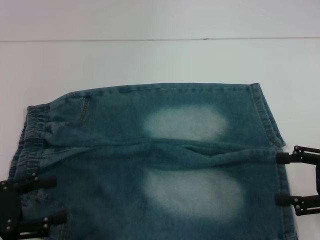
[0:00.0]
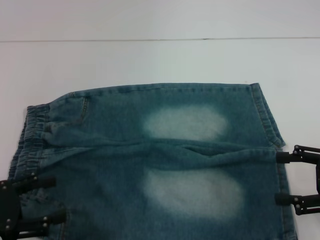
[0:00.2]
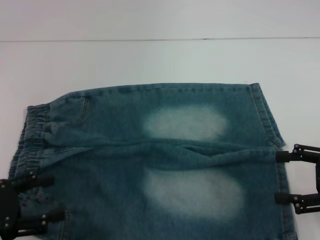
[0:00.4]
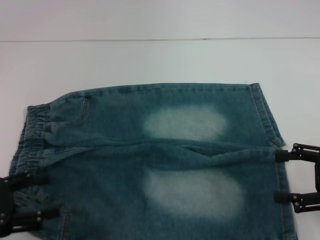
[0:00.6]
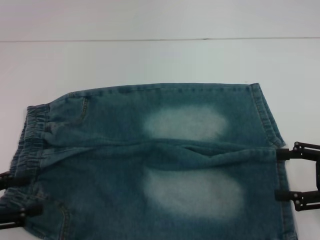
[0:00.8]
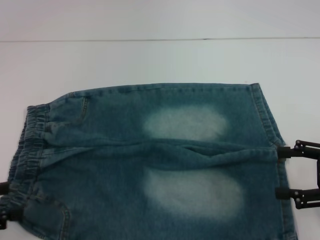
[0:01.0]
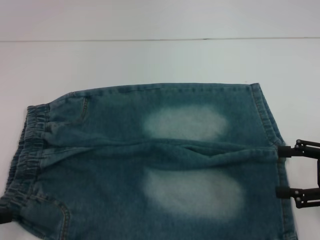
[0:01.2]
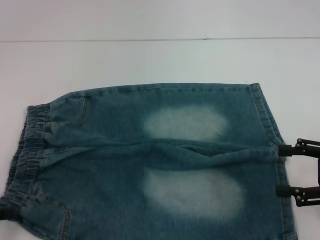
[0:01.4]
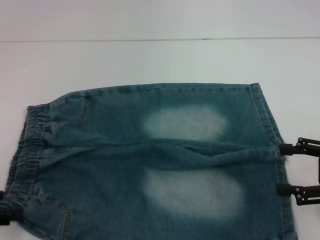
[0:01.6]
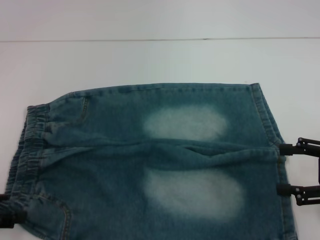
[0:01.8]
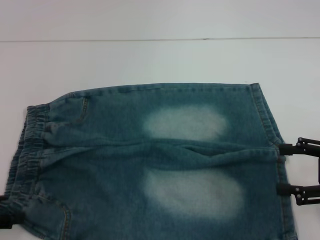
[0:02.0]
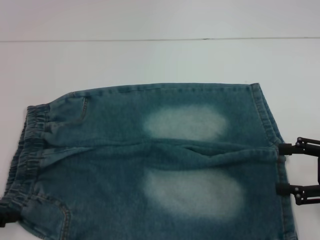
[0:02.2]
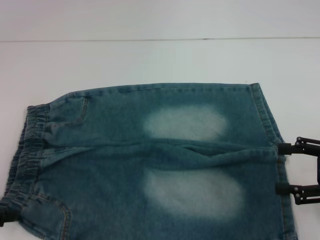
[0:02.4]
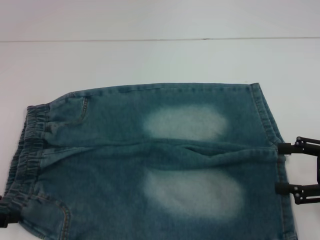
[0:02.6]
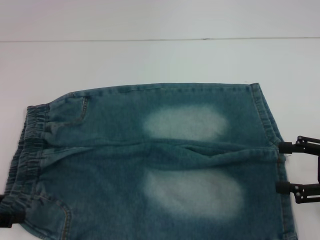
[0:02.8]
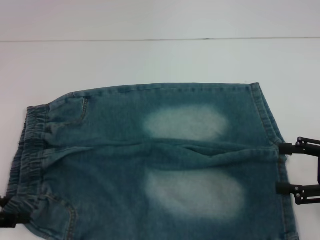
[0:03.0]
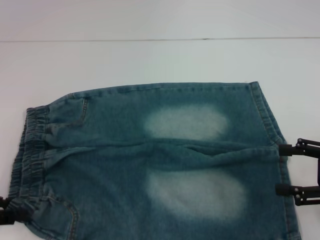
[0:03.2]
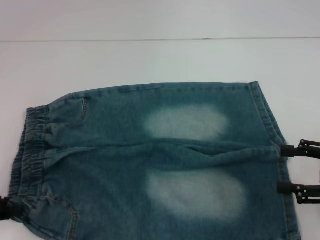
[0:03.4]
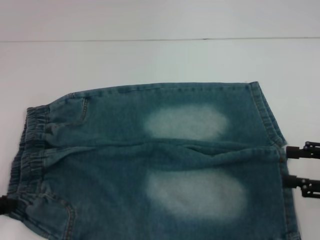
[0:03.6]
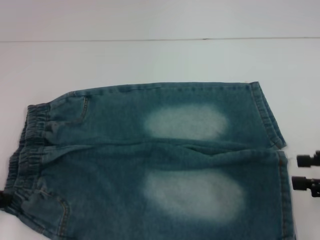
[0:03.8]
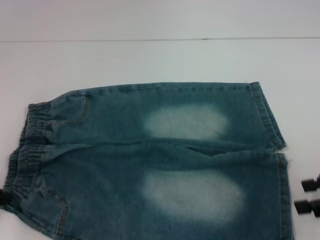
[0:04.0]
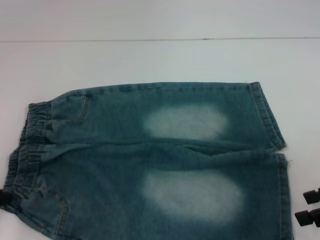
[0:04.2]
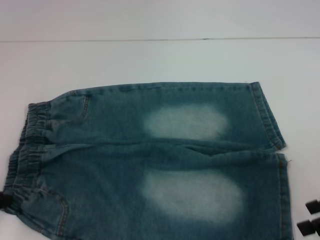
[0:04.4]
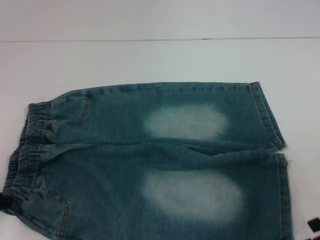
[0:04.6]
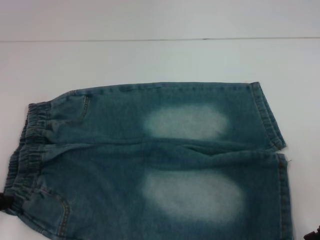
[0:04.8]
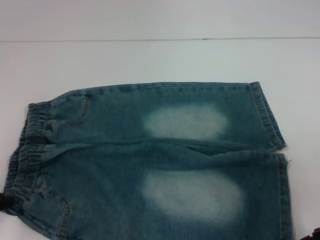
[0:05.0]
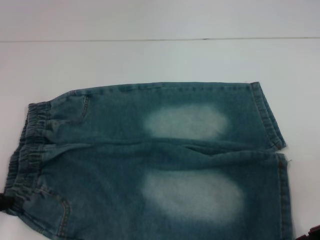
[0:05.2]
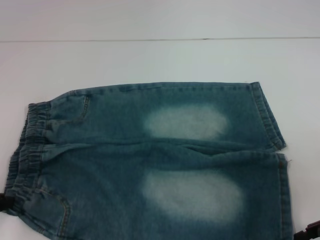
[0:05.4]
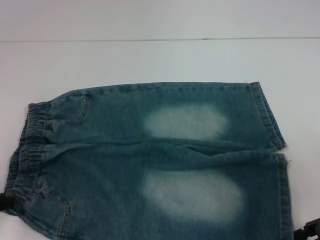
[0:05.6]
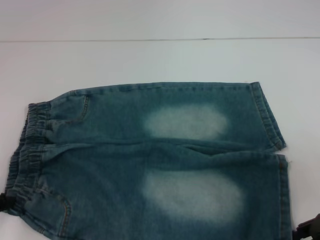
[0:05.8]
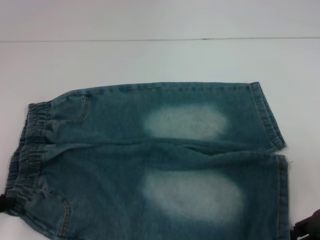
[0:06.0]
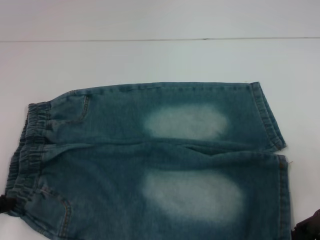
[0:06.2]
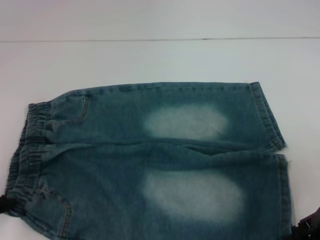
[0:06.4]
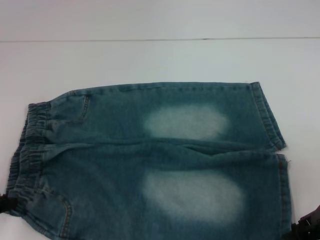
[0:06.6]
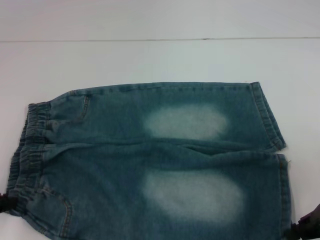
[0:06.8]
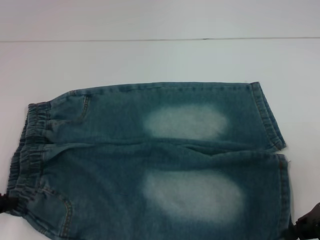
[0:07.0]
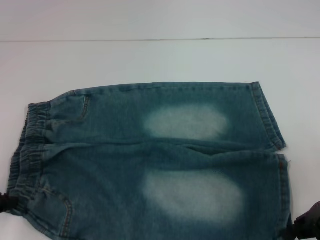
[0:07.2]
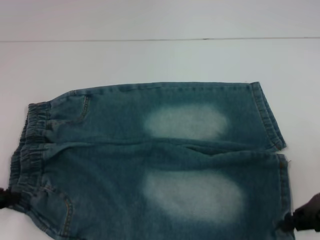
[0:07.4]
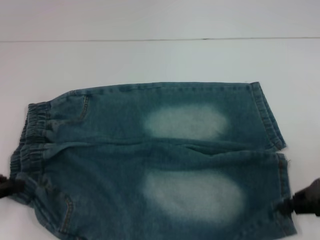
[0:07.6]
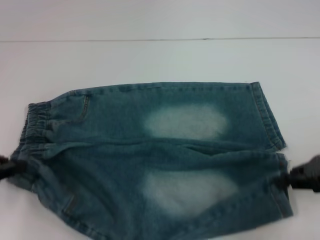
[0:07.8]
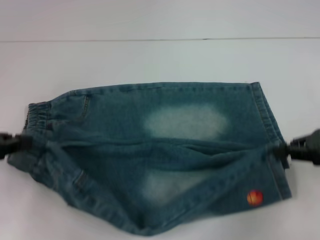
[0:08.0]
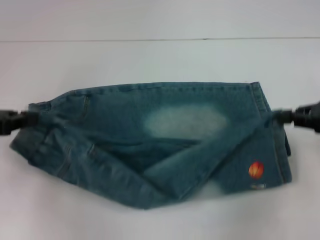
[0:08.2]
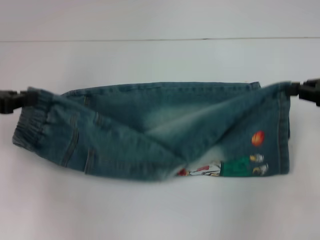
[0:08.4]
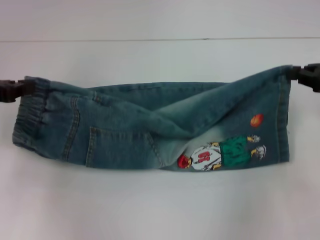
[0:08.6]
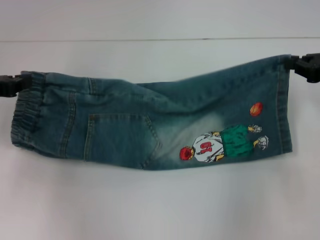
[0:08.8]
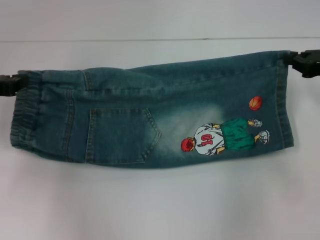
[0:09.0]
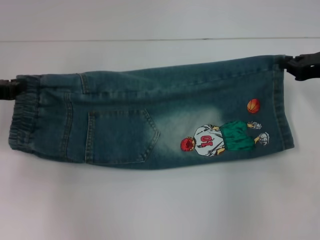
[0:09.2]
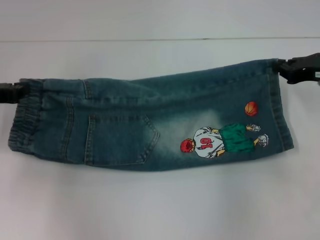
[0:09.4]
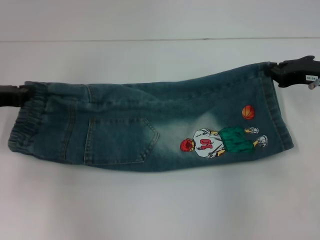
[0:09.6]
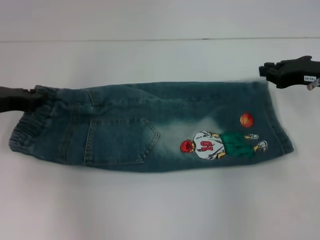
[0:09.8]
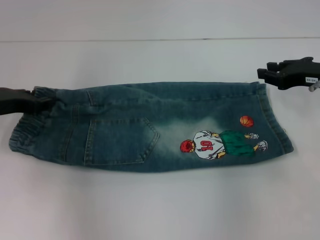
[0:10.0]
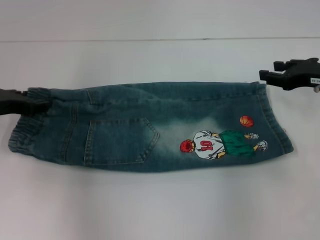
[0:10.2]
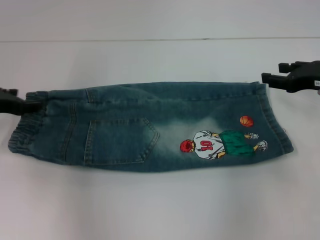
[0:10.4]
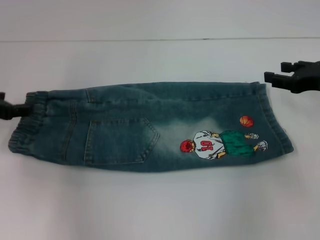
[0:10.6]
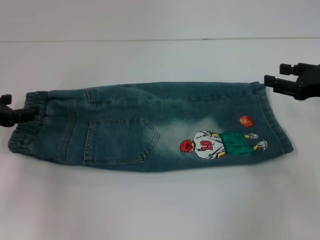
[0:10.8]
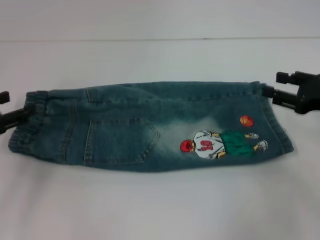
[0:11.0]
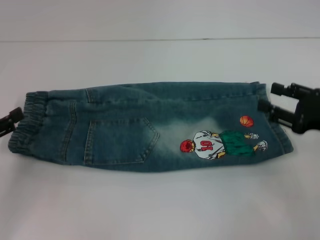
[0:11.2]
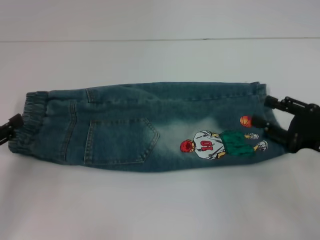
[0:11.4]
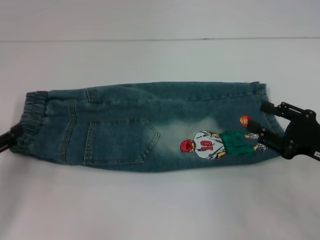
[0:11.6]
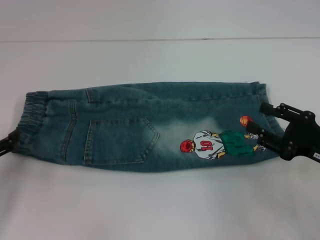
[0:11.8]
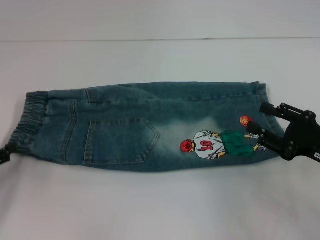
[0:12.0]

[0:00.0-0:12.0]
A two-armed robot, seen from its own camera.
Step, 0:00.0 to 0:03.4: Hold the lower left waistband with your left hand.
Step, 0:03.8 to 0:06.6: Grab the lower right pant leg with your right hand.
Step, 0:07.0 to 0:10.4: Fold upward with your right hand.
0:00.0 to 0:01.6: The left gripper changes place by some 5 cm.
0:01.6 to 0:03.0: The grippers stay close to where they were, moving slightly.
0:03.0 to 0:04.4: The left gripper closes up.
0:04.4 to 0:06.0: The right gripper shifts by roughly 5 cm.
0:06.0 to 0:07.6: The right gripper closes its fingers.
0:07.6 to 0:09.0: The two grippers go about 10 cm forward.
0:09.0 to 0:10.4: The right gripper opens; the left gripper opens up.
0:10.4 to 0:12.0: The left gripper moves backward, to the left and downward, about 15 cm, while the right gripper travels backward and downward by approximately 15 cm.

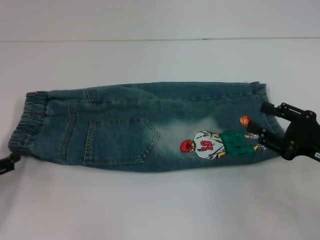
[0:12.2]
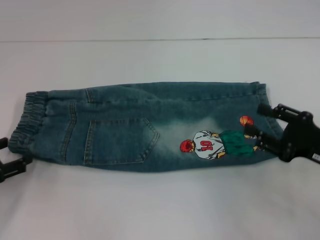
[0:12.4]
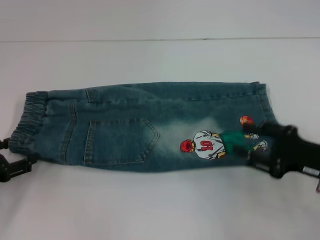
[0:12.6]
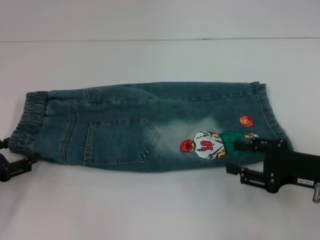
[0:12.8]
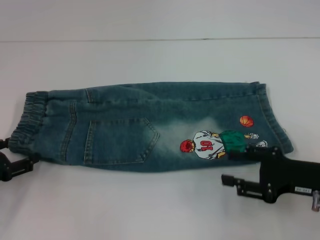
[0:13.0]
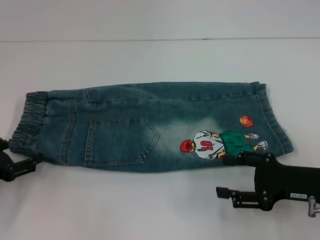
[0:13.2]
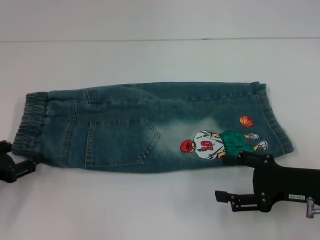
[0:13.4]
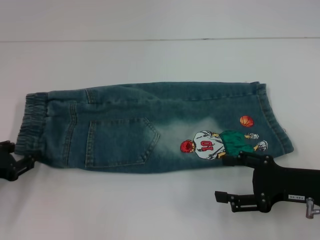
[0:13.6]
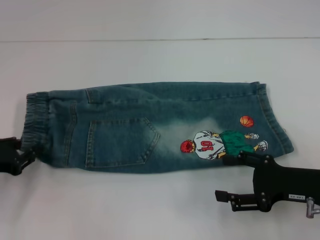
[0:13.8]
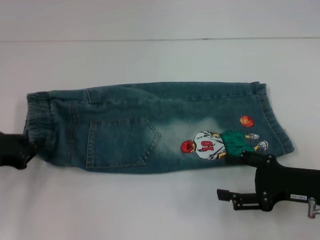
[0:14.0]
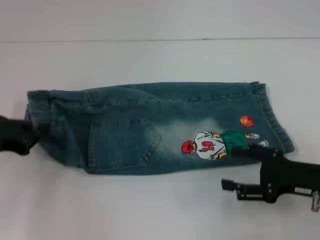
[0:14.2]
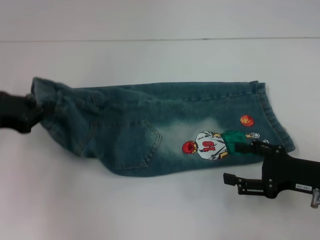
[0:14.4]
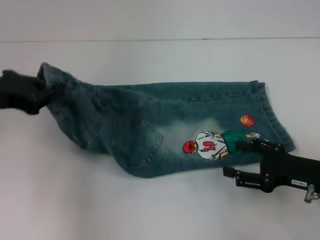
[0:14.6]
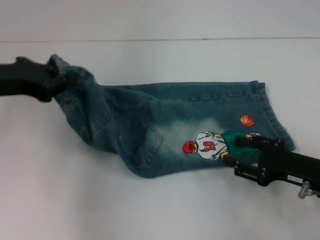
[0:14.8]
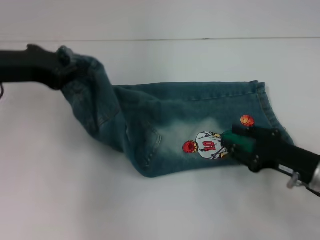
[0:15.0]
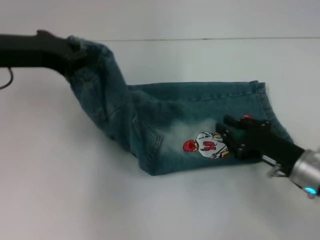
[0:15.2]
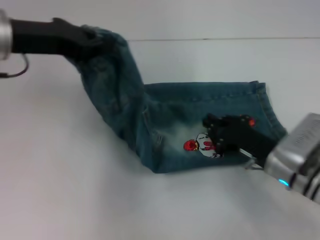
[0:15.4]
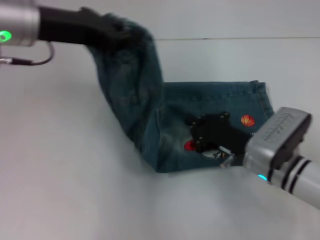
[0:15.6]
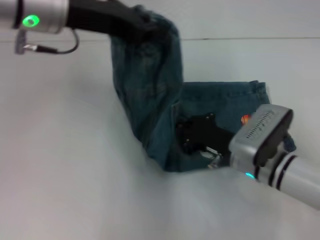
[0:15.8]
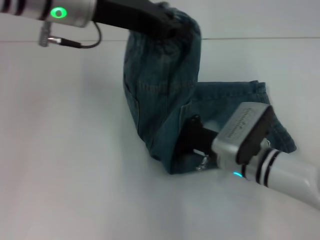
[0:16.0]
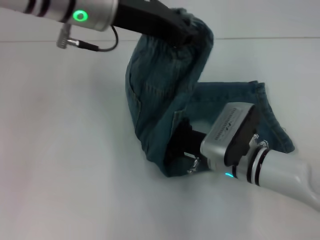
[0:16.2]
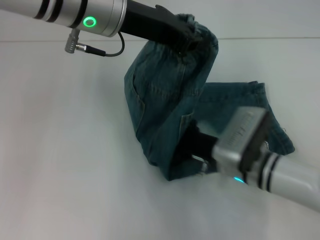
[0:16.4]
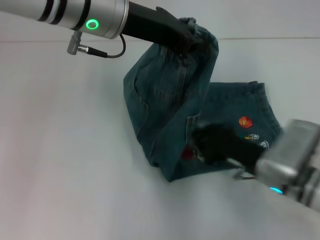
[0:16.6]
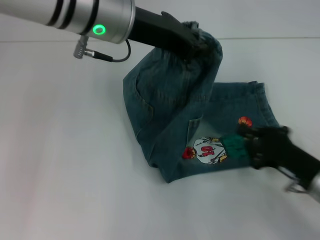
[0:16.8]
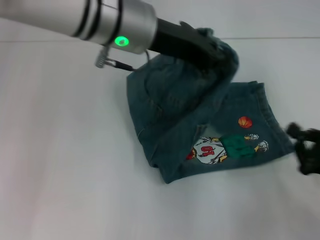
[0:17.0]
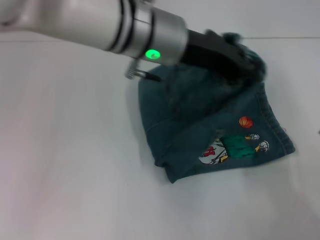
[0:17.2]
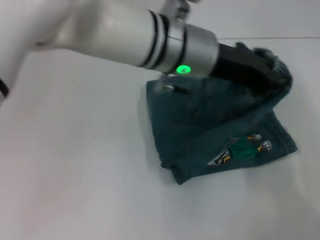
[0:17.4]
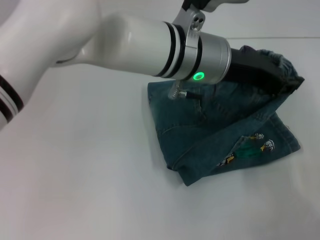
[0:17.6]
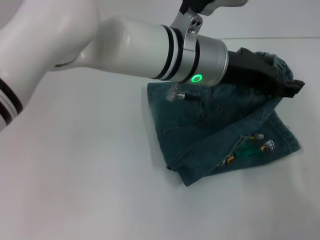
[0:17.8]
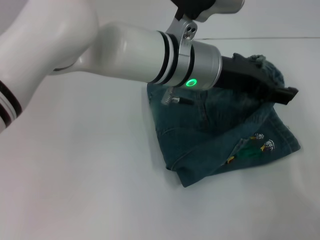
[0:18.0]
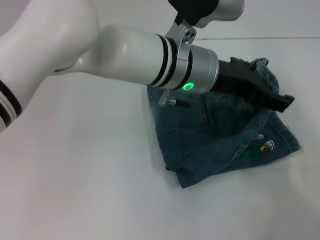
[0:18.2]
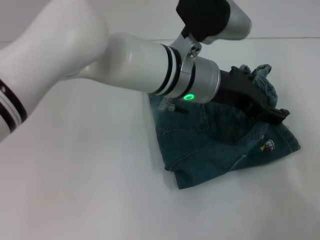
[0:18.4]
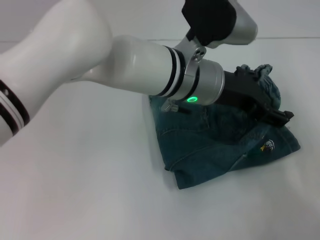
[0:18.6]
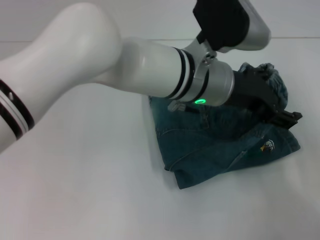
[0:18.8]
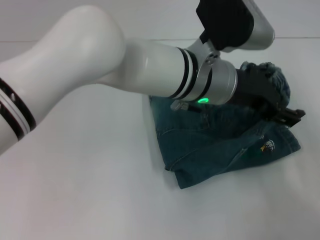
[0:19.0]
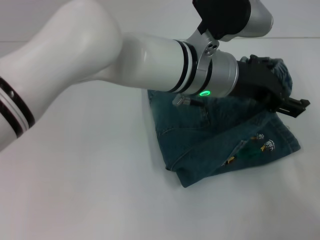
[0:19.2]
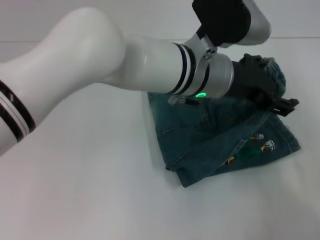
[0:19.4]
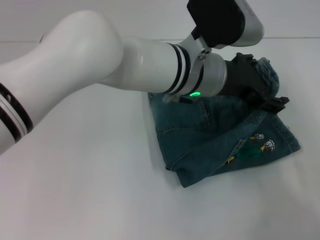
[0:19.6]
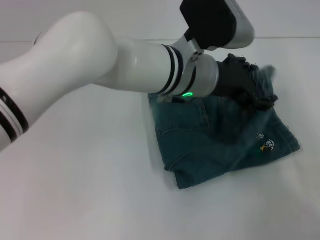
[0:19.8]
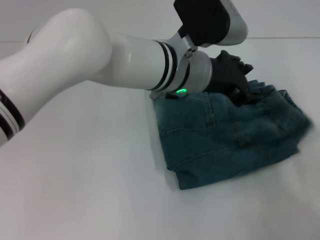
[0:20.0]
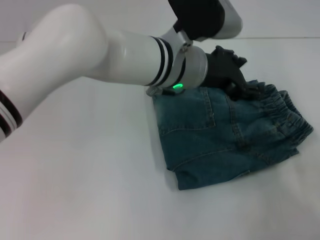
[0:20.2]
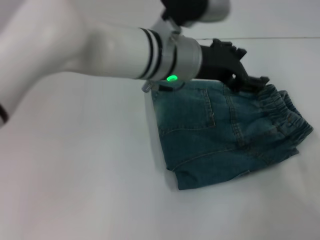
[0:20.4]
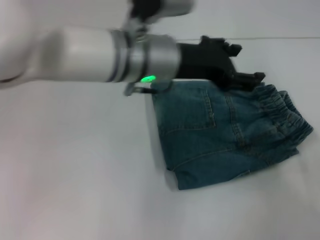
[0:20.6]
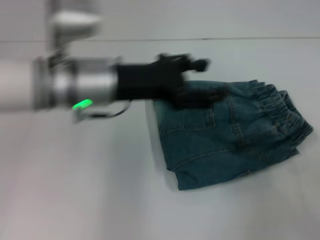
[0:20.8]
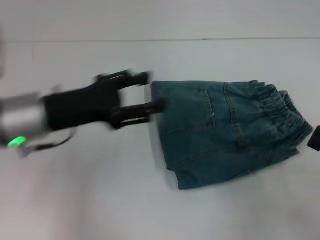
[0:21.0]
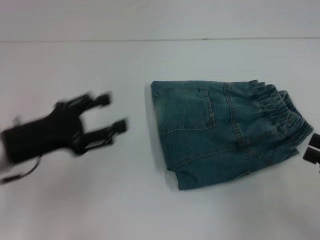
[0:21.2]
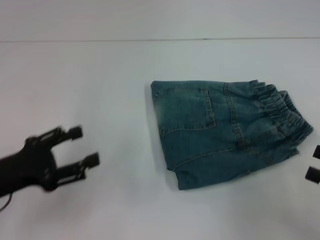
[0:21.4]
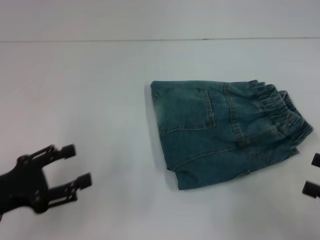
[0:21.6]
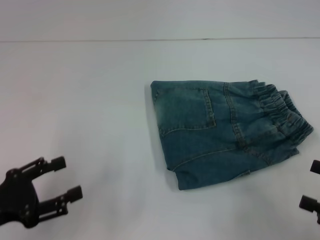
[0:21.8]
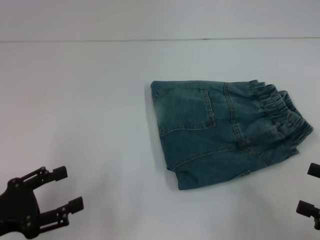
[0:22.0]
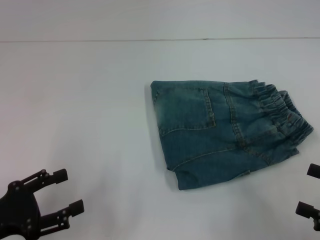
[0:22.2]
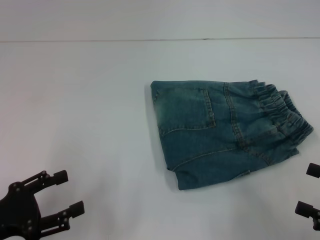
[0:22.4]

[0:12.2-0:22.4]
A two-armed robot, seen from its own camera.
Step, 0:13.8 to 0:16.4: Press the middle of the pants with your right hand.
Step, 0:16.8 to 0:20.4: Fold to the right with your left hand.
0:13.6 to 0:15.2: The right gripper closes its fingers. Meanwhile the left gripper moves upward, to the right and forward, about 20 cm, and closes.
0:15.2 to 0:16.6: The right gripper heads to the left, covering approximately 5 cm, and closes its fingers; the left gripper is displaced to the right by roughly 15 cm.
0:16.6 to 0:18.0: The left gripper travels to the right and downward by approximately 10 cm, and opens. The right gripper goes approximately 20 cm to the right and backward.
0:18.0 to 0:19.4: The left gripper opens its fingers.
0:19.4 to 0:21.0: The left gripper travels to the left by some 20 cm.
0:21.0 to 0:22.4: The right gripper opens, while the left gripper heads backward, to the left and downward, covering some 20 cm.
